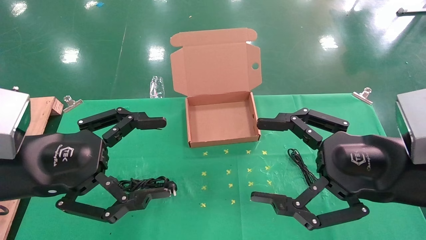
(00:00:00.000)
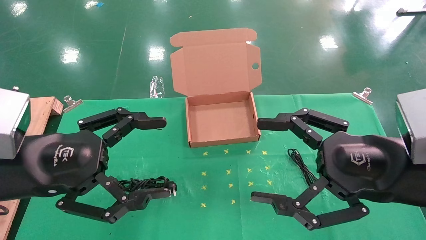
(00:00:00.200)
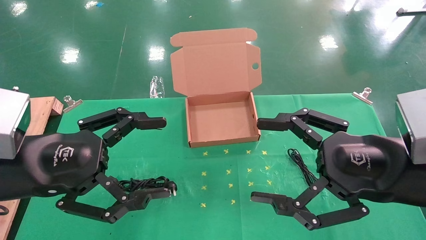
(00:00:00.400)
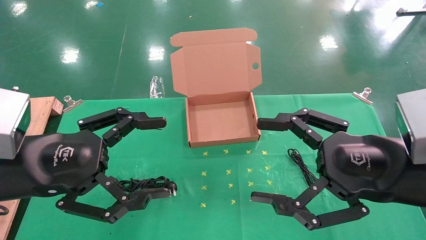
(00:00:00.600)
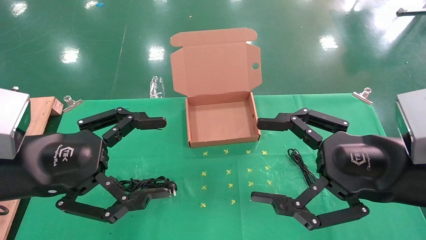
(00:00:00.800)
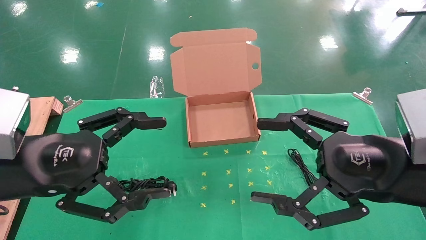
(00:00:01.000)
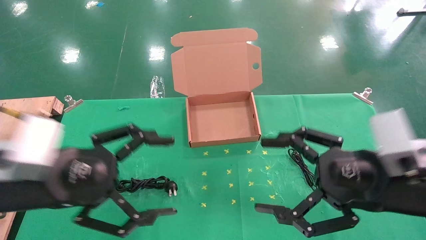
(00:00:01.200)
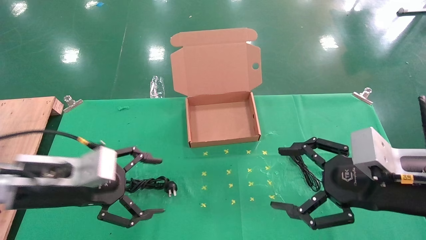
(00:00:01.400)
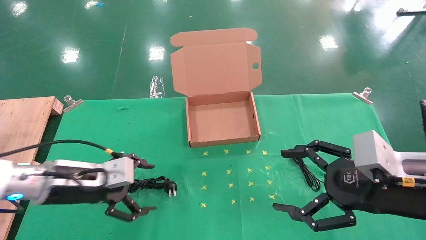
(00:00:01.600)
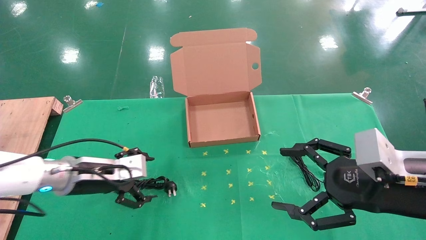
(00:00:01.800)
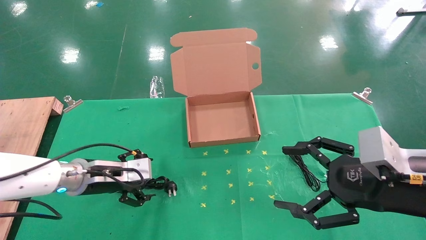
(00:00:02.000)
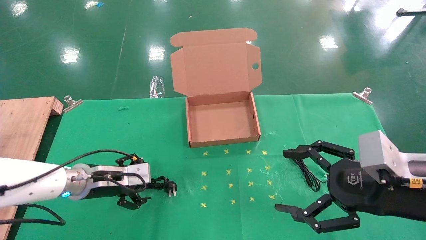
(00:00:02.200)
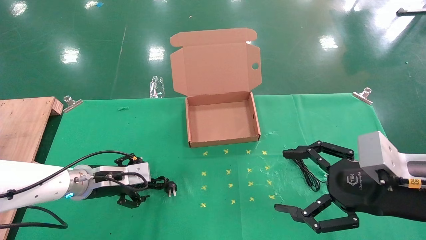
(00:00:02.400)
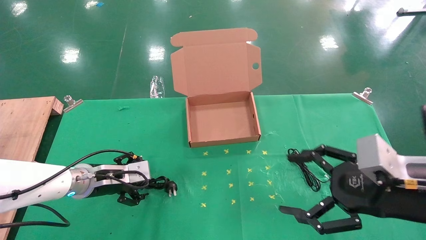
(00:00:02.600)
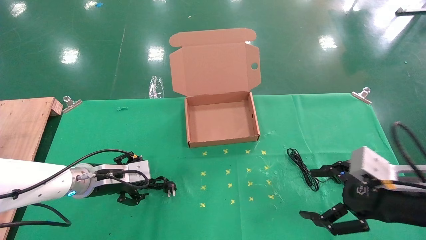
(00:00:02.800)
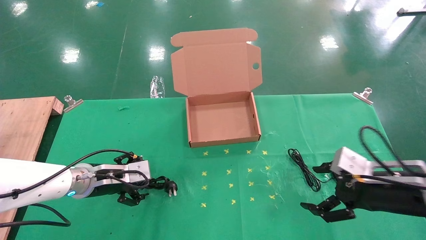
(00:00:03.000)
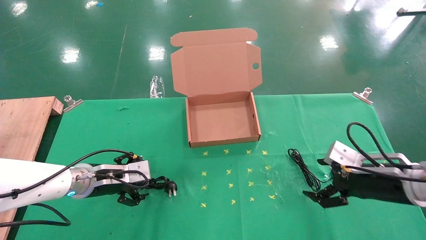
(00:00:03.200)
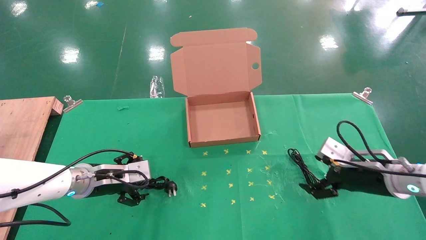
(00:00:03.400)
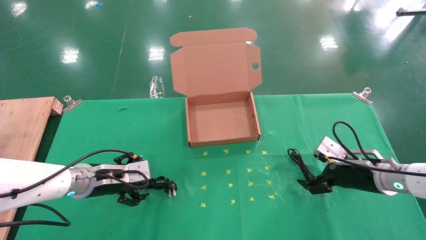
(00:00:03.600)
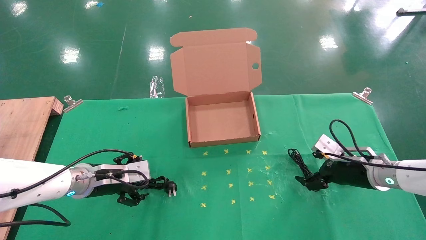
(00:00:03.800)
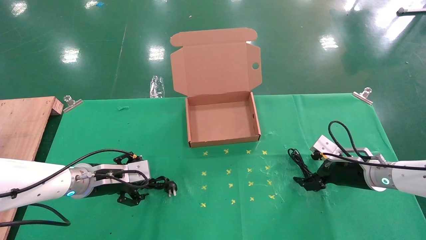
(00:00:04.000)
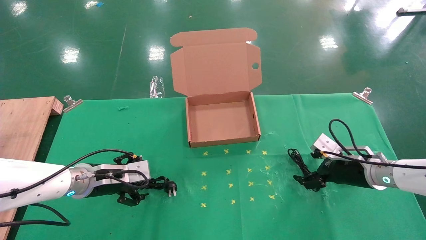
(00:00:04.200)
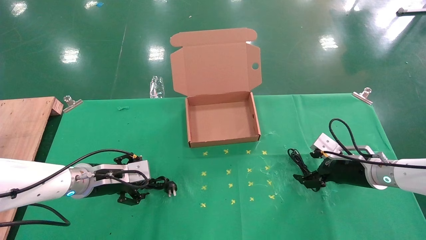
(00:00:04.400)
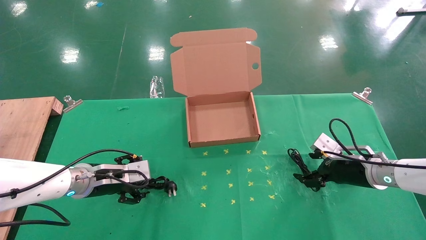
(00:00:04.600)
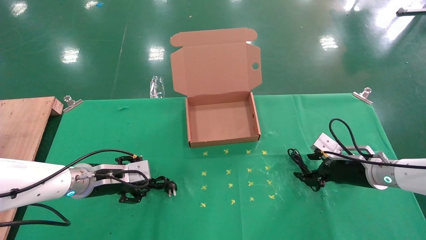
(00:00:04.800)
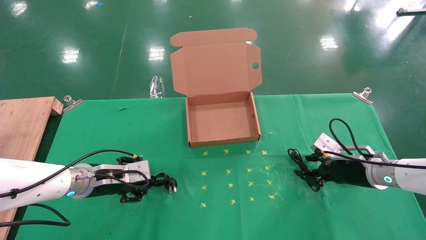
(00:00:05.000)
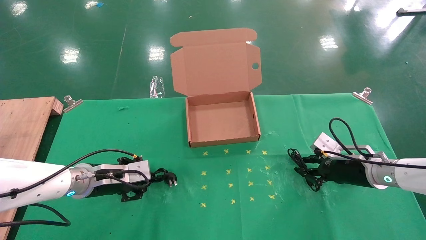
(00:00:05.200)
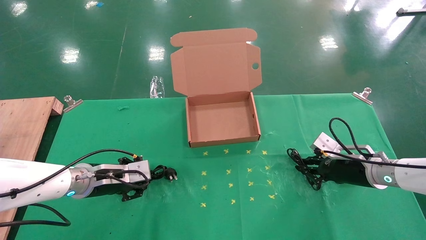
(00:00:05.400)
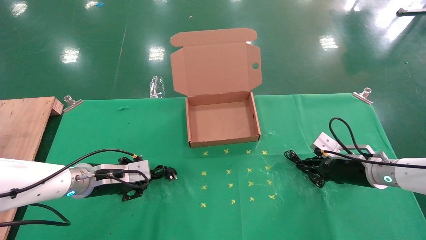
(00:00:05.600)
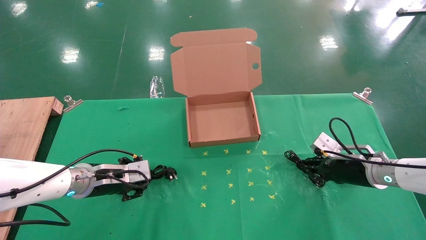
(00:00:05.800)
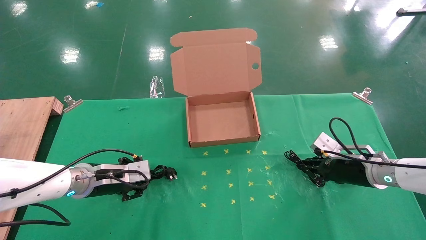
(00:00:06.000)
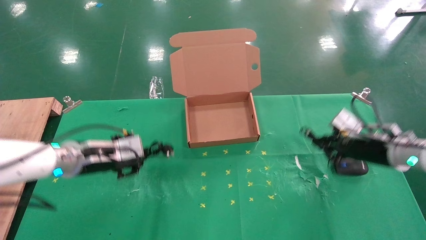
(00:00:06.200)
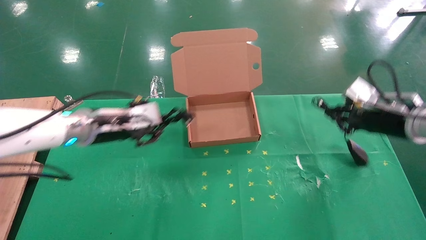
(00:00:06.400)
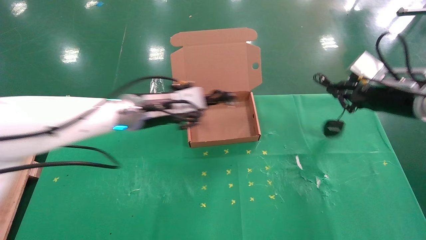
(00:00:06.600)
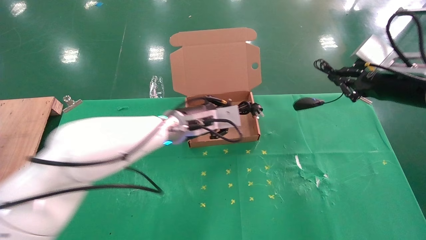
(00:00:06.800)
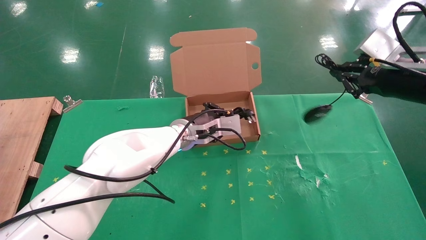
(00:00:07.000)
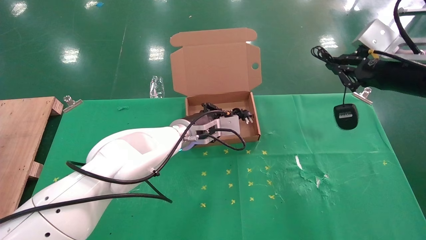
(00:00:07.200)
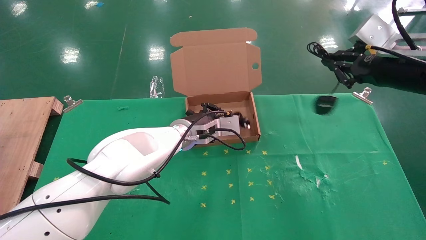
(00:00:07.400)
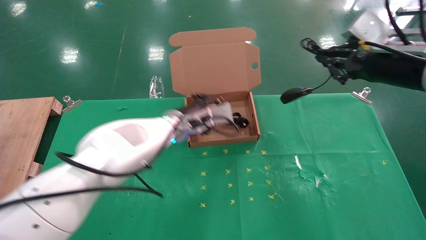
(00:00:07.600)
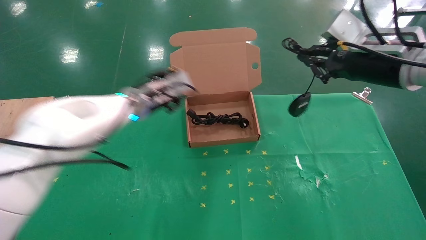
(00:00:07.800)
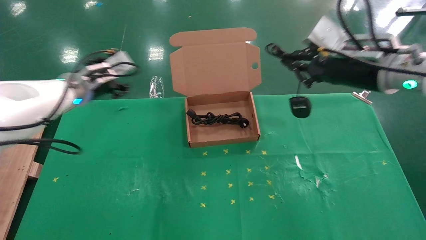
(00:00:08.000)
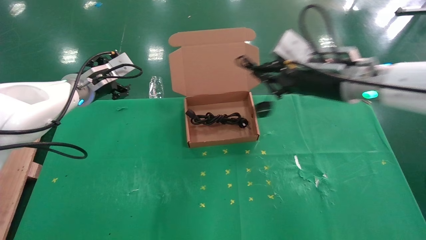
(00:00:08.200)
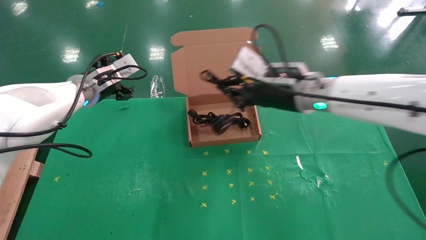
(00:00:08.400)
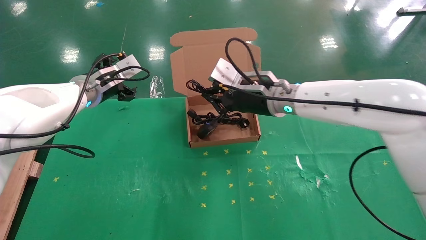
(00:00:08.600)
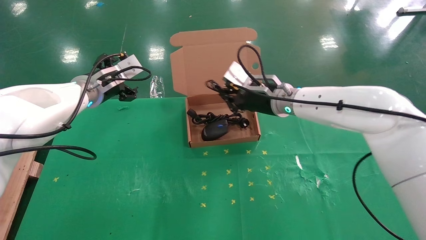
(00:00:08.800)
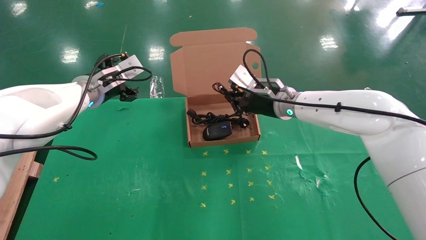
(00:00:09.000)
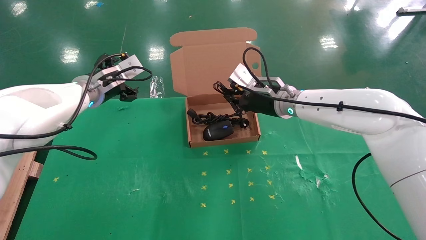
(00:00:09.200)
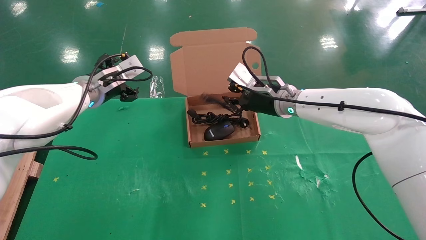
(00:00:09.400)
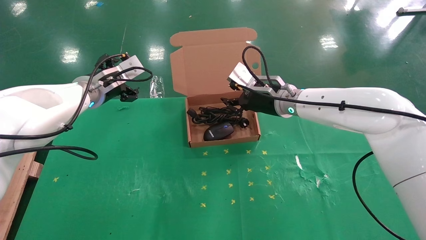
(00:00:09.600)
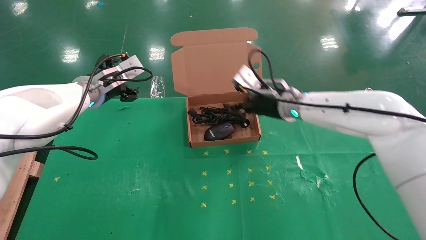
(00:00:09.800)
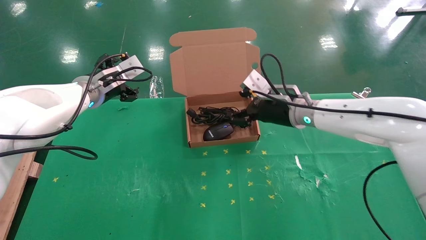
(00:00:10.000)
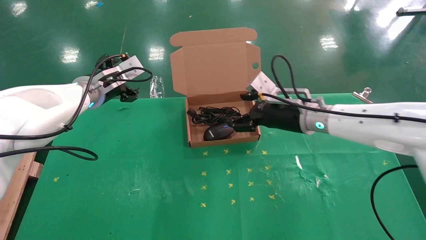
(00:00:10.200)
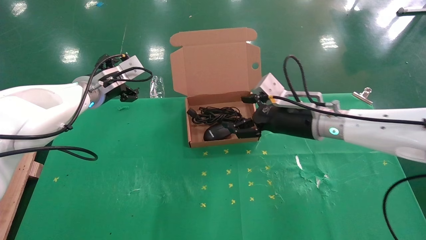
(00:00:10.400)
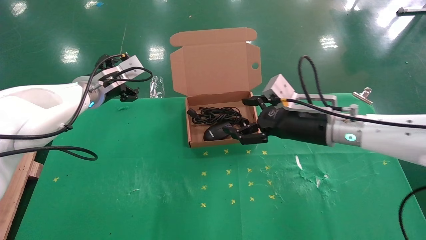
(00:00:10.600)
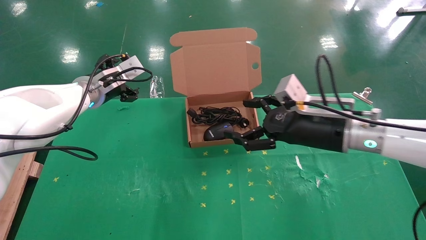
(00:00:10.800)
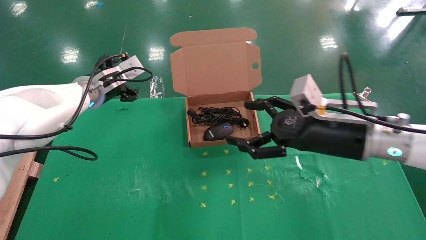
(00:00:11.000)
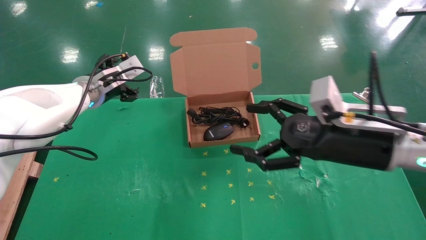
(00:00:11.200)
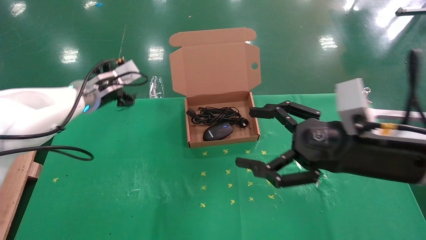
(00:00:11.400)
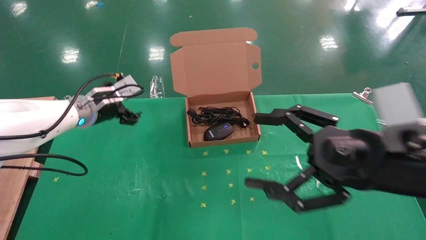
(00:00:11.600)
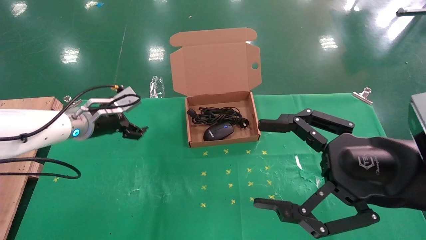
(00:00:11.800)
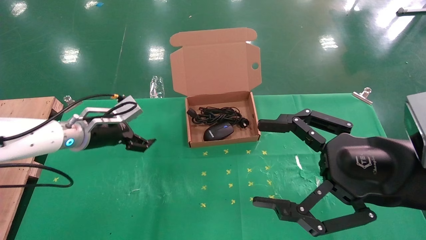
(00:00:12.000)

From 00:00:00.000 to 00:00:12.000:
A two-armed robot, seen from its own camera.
Task of the whole recording: grasp data cable left put into box grasp mouse right put into box.
Step, from 00:00:01.400 to 00:00:05.600: Simultaneously pick up the mouse and power cord from the accessory packaging area.
Step, from 00:00:05.800 to 00:00:09.200: Place the mouse and power cord into the box.
From 00:00:00.000 to 00:00:01.600: The left gripper goes about 15 cm downward and forward. The right gripper moves roughly 5 cm.
From 00:00:01.600 to 00:00:03.000: The grippers both shift forward and downward by approximately 10 cm.
From 00:00:03.000 to 00:00:04.400: The right gripper is displaced forward and downward by roughly 15 cm.
From 00:00:04.400 to 00:00:06.000: The left gripper closes; the right gripper closes up.
From 00:00:06.000 to 00:00:07.600: The left gripper travels to the right, forward and upward by some 20 cm, while the right gripper travels upward by approximately 20 cm.
From 00:00:07.600 to 00:00:09.000: The left gripper moves to the left and upward, roughly 15 cm, and opens up. Meanwhile the right gripper shifts about 25 cm to the left, forward and downward.
From 00:00:09.000 to 00:00:10.400: The right gripper is displaced backward and to the right by roughly 10 cm, and opens up.
From 00:00:10.400 to 00:00:12.000: The left gripper travels downward and backward by approximately 10 cm, while the right gripper goes approximately 20 cm backward.

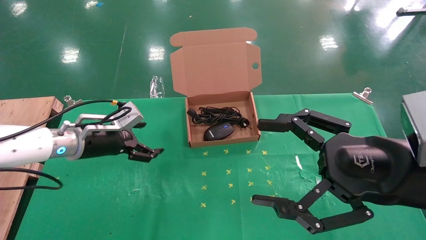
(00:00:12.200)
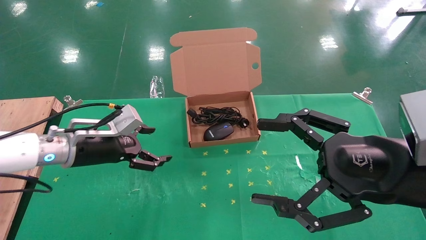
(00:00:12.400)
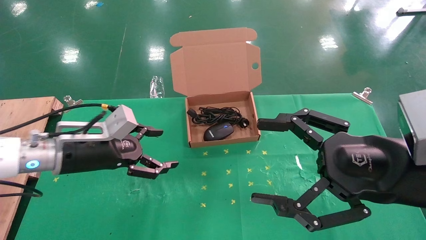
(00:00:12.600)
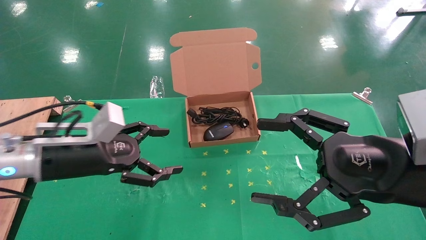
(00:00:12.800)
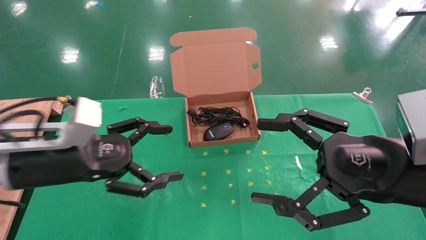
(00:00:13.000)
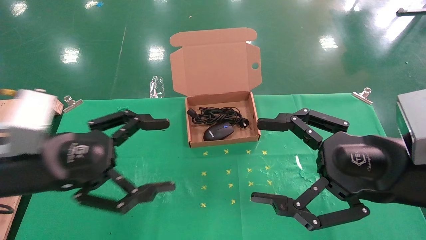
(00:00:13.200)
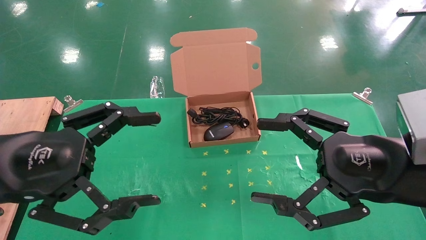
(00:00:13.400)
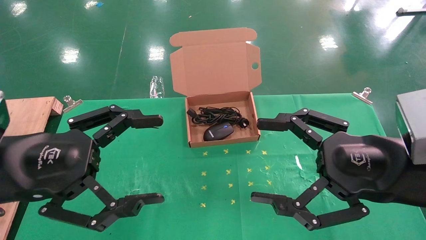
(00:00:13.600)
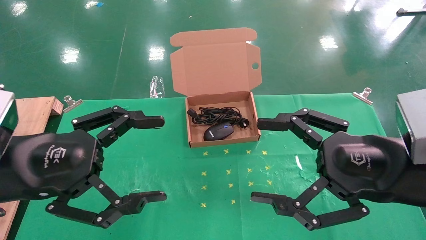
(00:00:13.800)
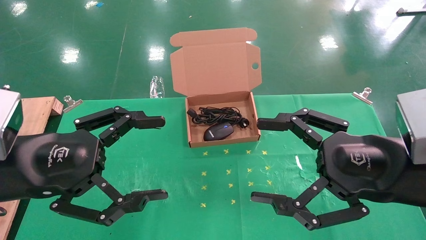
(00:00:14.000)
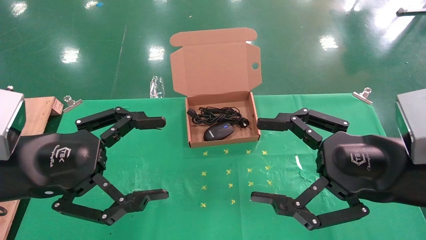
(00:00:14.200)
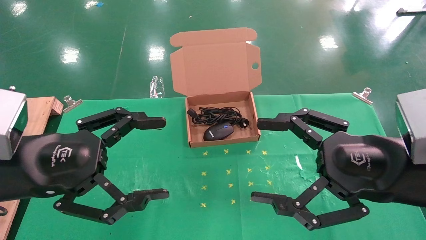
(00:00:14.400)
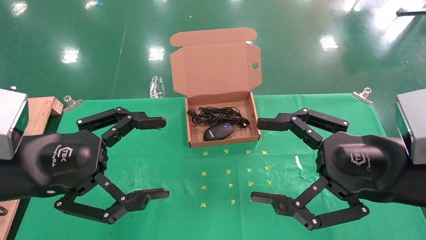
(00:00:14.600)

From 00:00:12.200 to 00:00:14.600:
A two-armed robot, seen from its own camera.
Task of the whole recording: grasp data cable left put into box grasp mouse right put into box.
From 00:00:12.200 to 00:00:13.400: The left gripper moves backward and upward, roughly 20 cm.
From 00:00:13.400 to 00:00:14.600: Neither gripper changes place.
